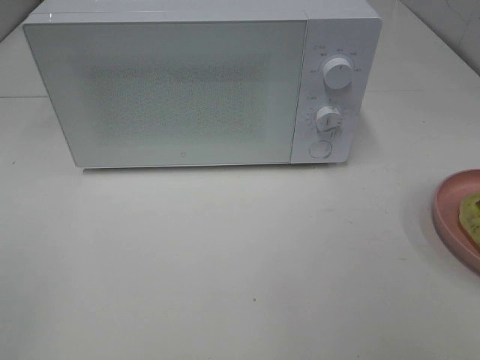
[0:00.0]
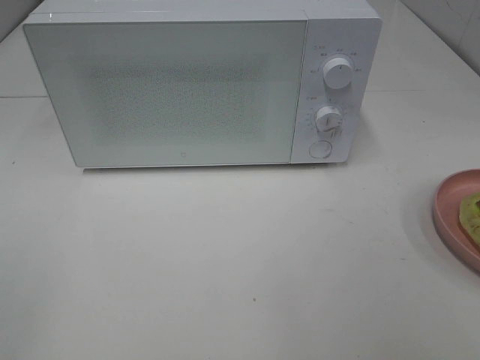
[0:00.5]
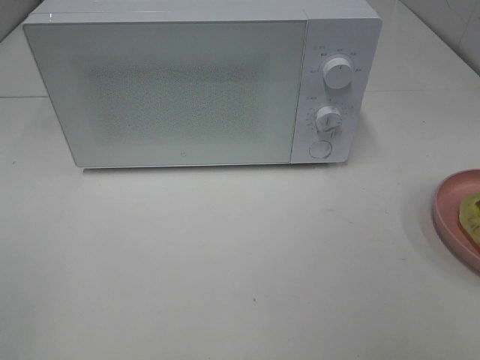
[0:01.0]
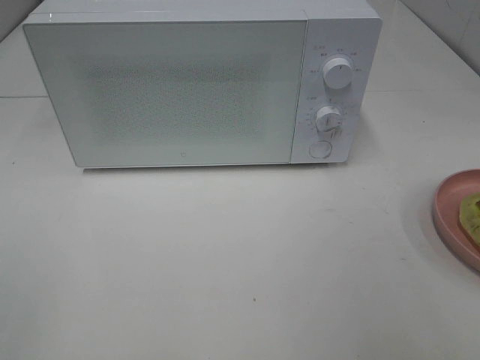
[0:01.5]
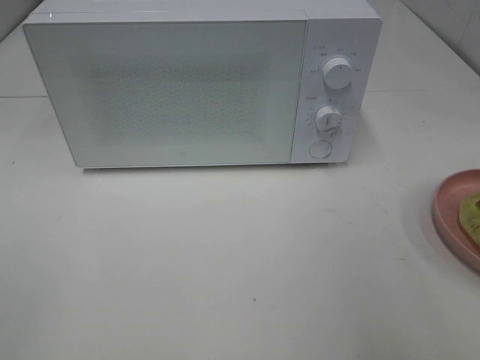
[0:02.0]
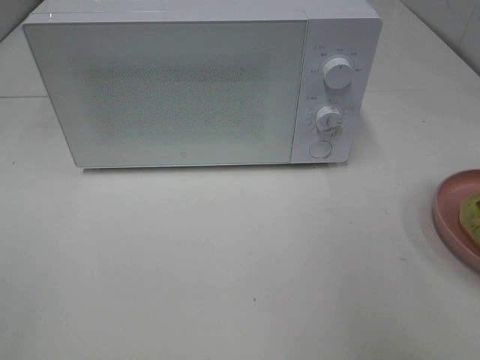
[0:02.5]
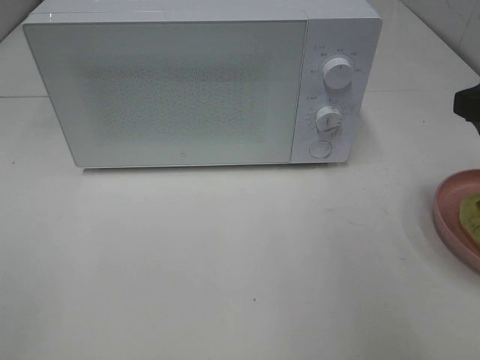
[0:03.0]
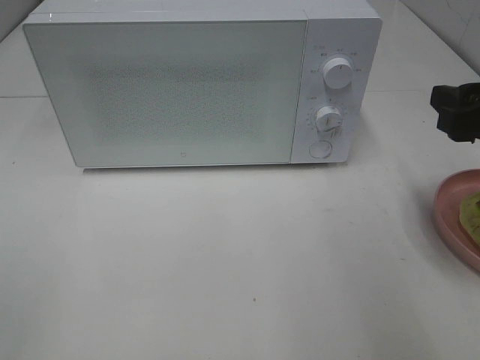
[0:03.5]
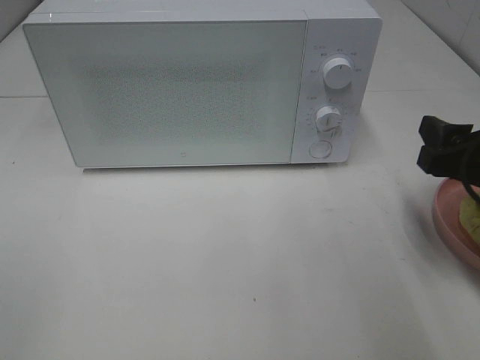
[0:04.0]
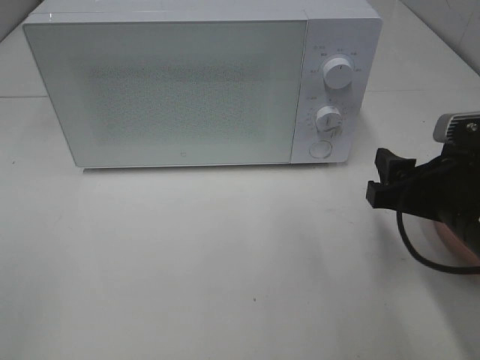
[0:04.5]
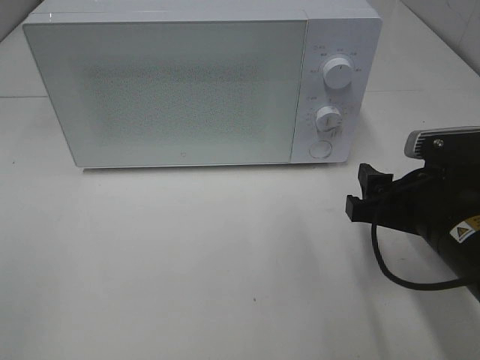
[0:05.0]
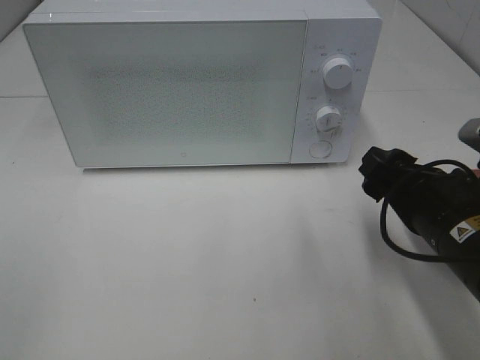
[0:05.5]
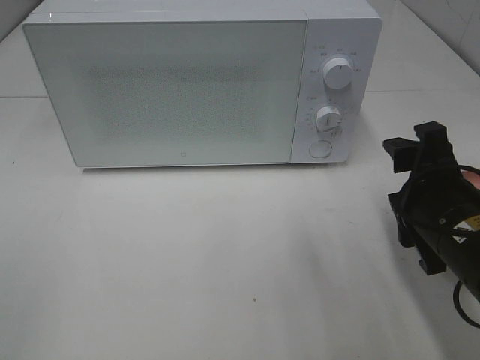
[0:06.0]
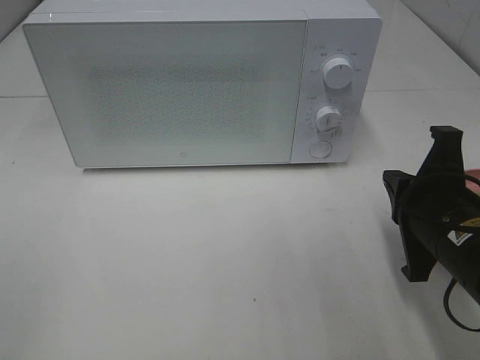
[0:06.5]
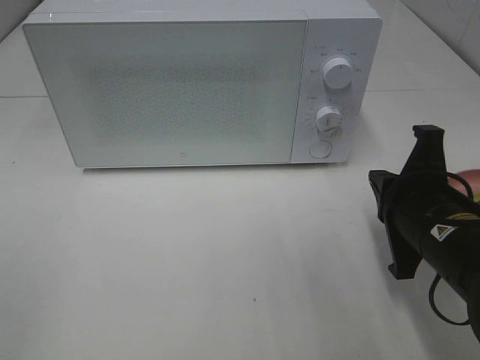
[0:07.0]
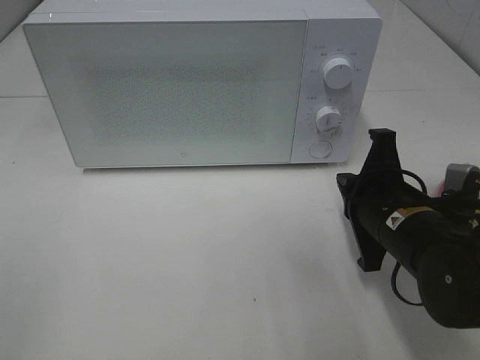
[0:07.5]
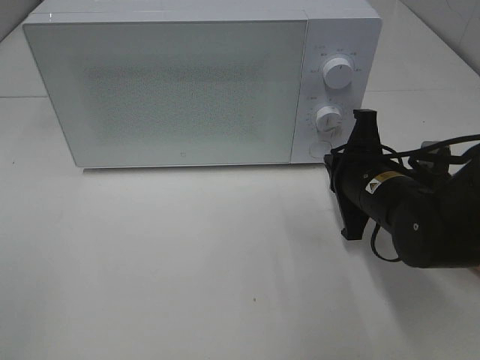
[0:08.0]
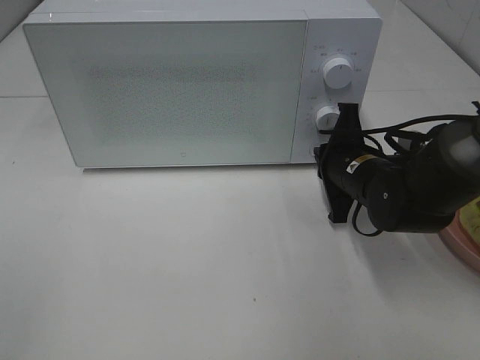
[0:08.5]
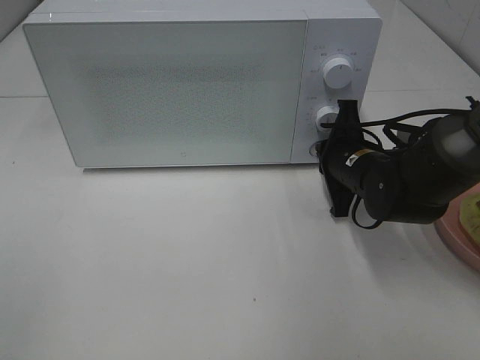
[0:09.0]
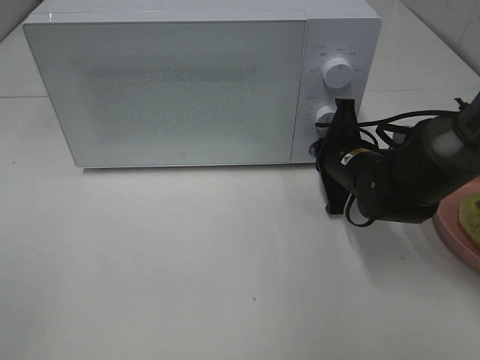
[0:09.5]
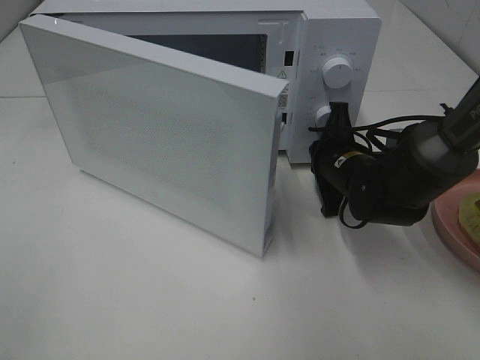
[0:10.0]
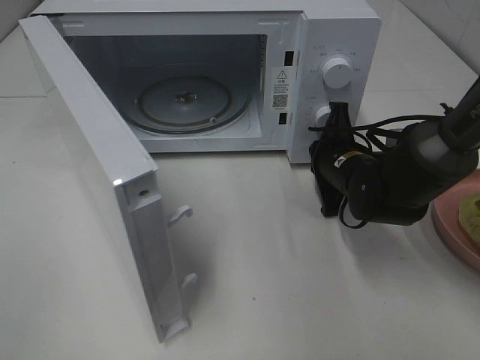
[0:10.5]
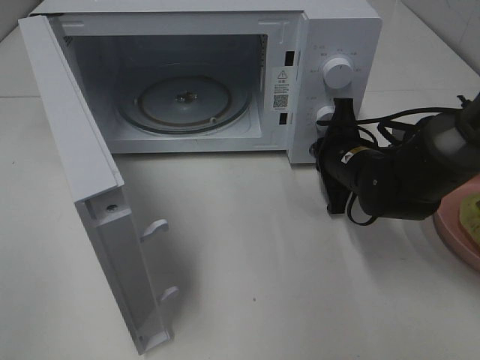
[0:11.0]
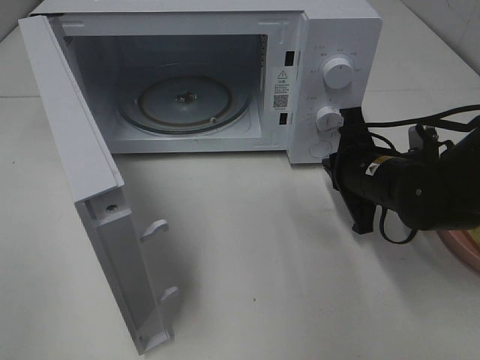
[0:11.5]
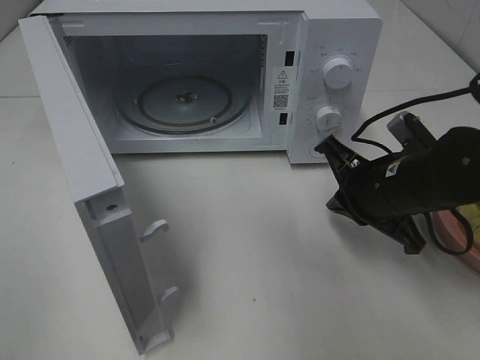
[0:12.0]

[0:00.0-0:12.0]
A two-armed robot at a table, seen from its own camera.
Task of the whole recording: Heat Sandwich.
Step, 0:00.0 to 0:11.0: Right hand: press the switch.
0:02.0 to 0:04.0: The right gripper shifts roughly 15 cm downward and forward.
0:04.0 to 0:06.0: The right gripper goes roughly 5 cm to the left.
0:06.0 to 0:08.0: The right gripper heads forward, covering some 10 cm, and closes up.
0:08.0 to 0:10.0: The right gripper travels forward by some 5 cm.
0:10.0 to 0:12.0: The right gripper goes about 10 cm backward and upward.

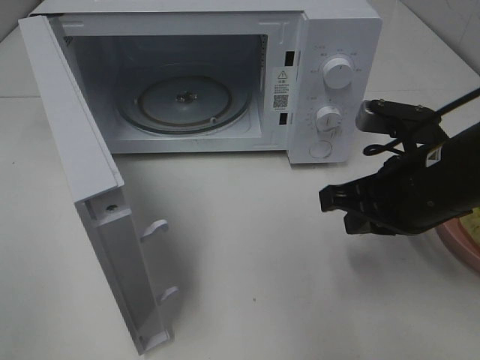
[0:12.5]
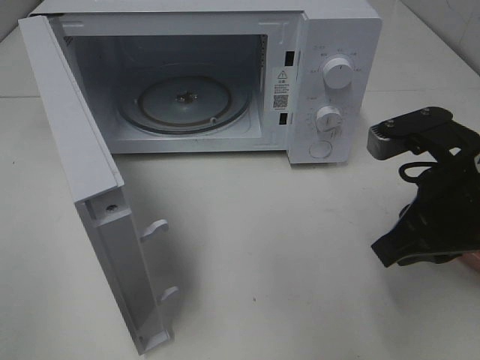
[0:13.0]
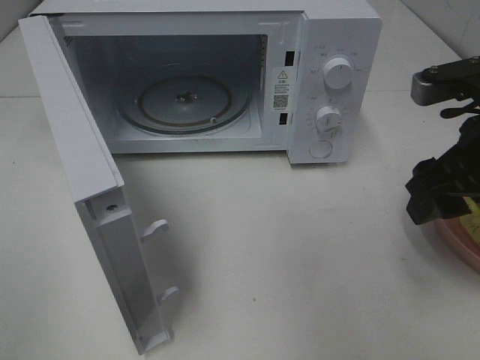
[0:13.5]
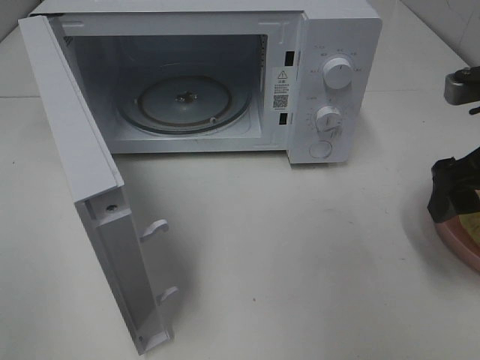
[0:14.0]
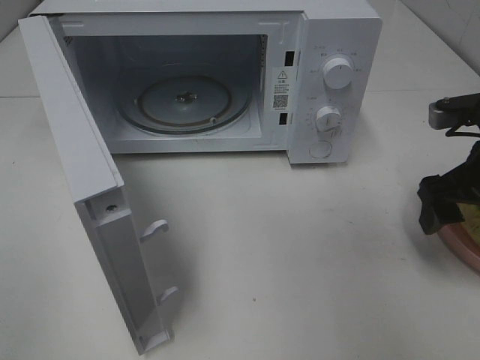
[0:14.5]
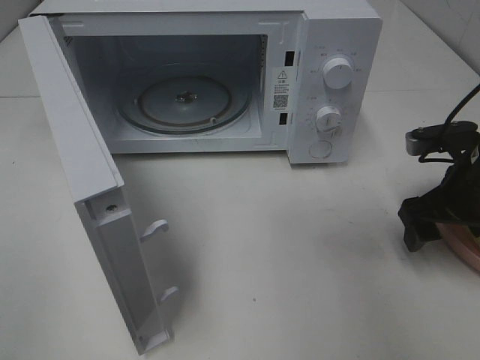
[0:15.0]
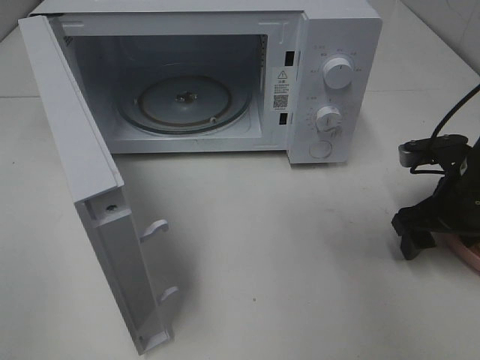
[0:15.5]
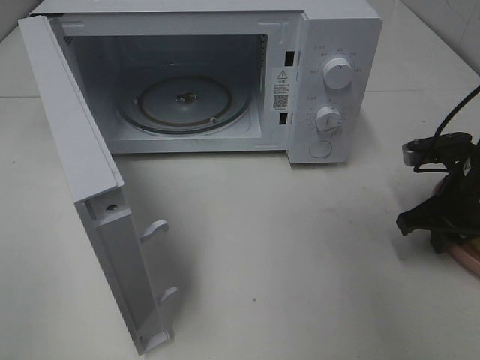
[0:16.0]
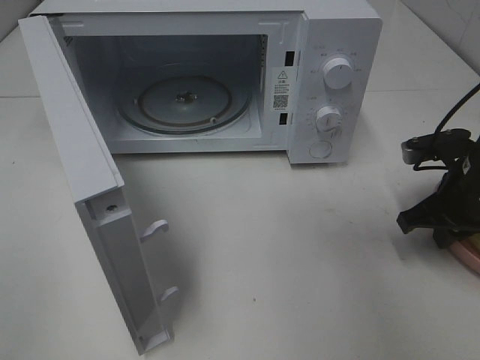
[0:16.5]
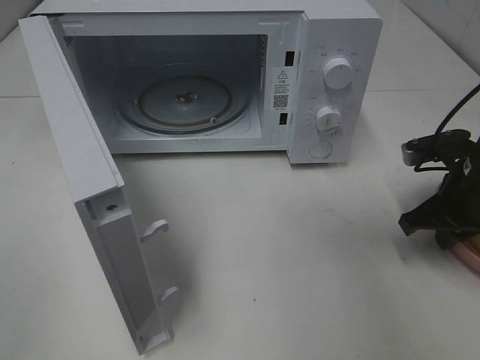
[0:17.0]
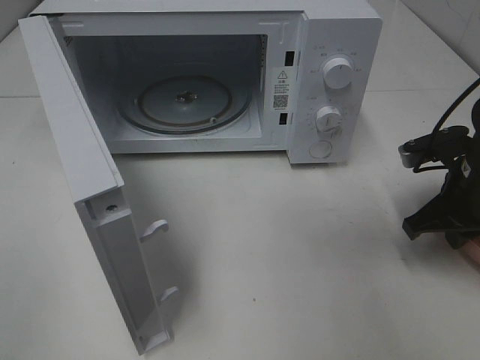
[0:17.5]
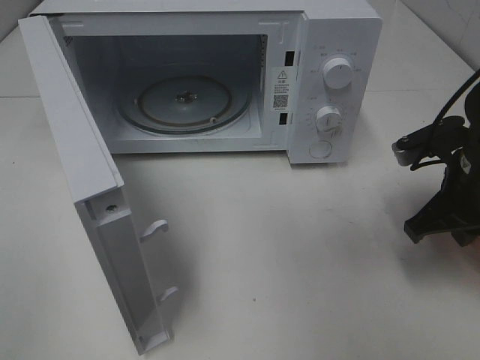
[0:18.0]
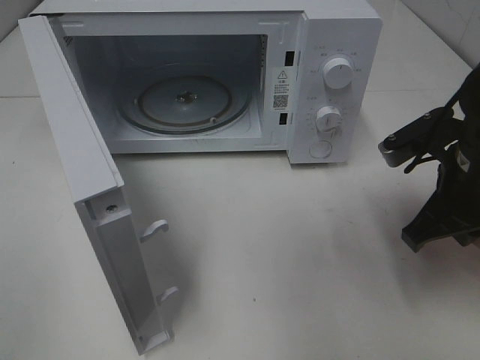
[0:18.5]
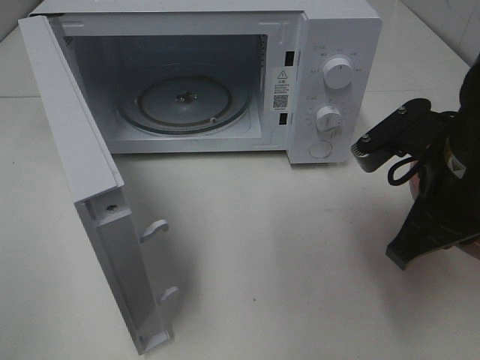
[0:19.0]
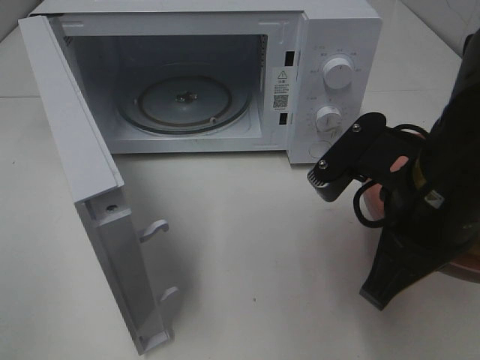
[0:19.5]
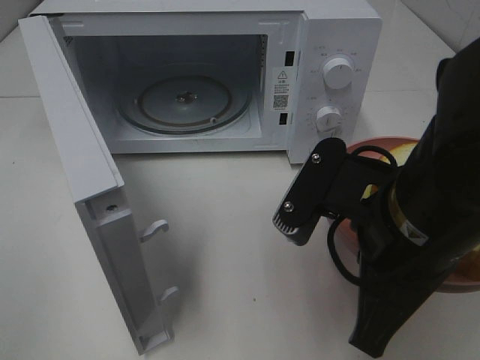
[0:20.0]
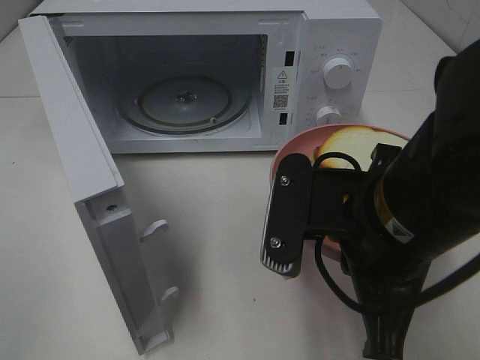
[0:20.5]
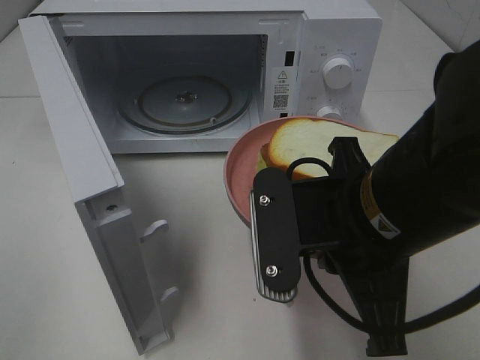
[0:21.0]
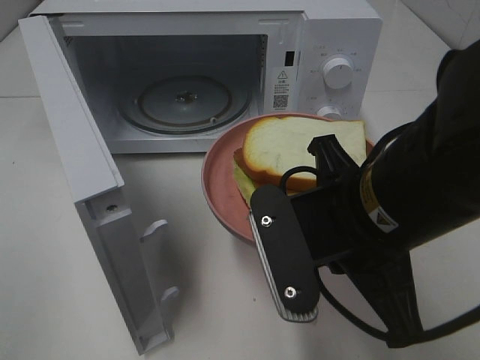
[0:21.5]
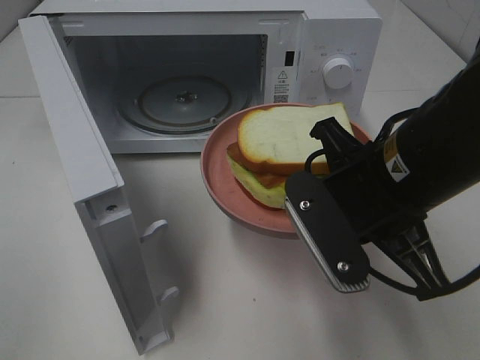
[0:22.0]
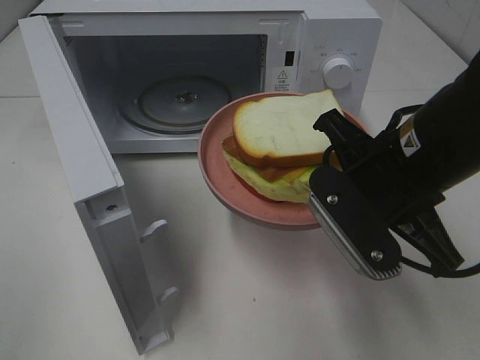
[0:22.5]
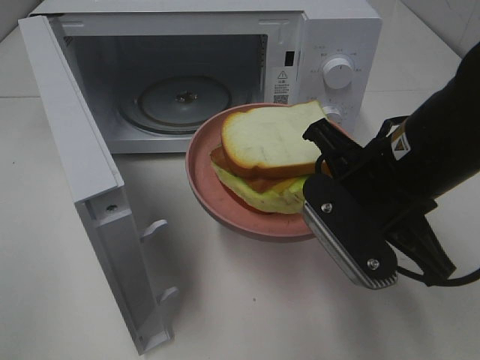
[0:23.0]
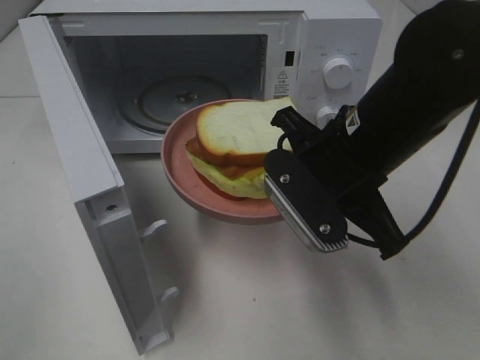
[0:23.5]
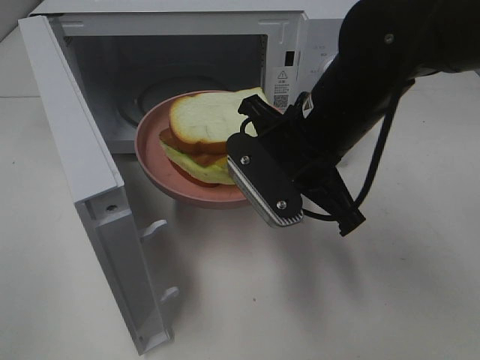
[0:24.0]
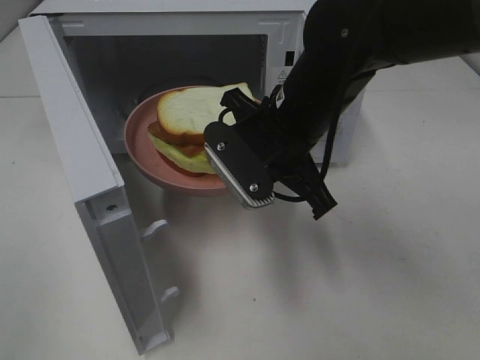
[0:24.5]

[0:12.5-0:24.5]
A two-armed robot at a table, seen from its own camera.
Task of the whole recording: Heat Sandwich.
Step, 0:12.5 to 0:17.0: Right hand: grab the plate with the sandwich.
0:12.5 to 0:14.5: The right gripper is displaced to the right by about 10 cm, and opens its fingers.
0:14.5 to 0:16.5: The right gripper heads downward, covering roughly 5 cm, and closes up.
0:16.5 to 0:18.5: The right gripper moves upward and to the left, approximately 10 cm.
0:18.5 to 0:20.5: The right gripper heads to the left and backward, covering roughly 15 cm.
0:20.5 to 0:22.5: The right gripper goes about 5 cm forward.
0:22.5 to 0:24.5: The right gripper goes about 10 cm to the left and forward.

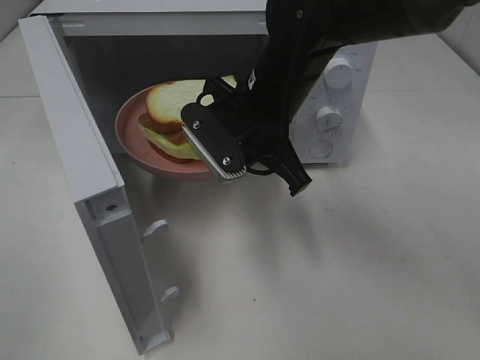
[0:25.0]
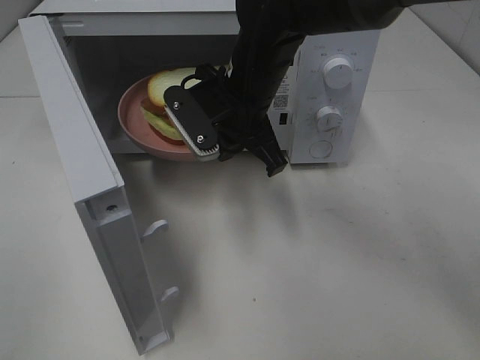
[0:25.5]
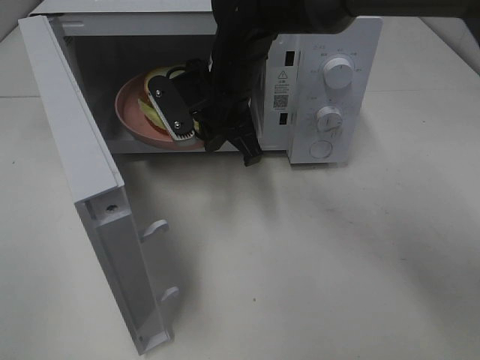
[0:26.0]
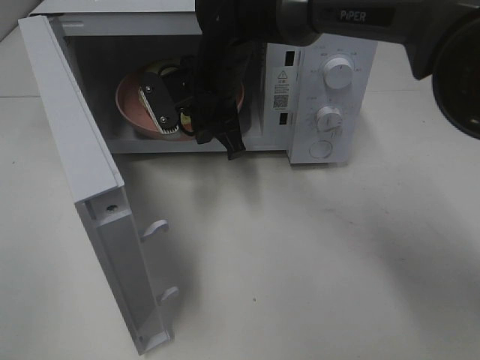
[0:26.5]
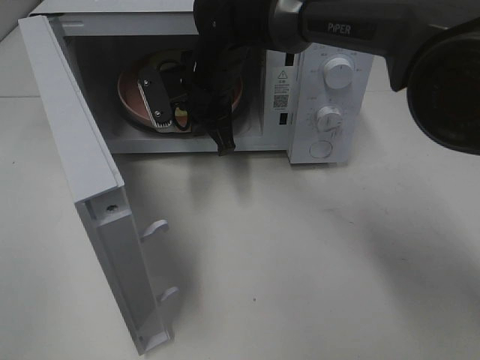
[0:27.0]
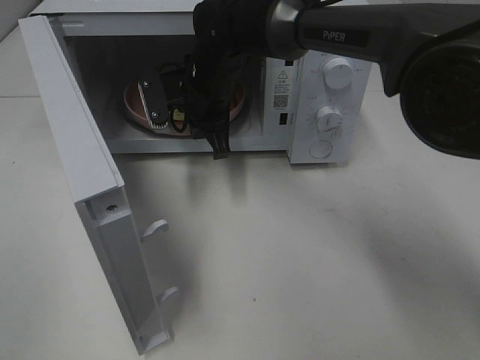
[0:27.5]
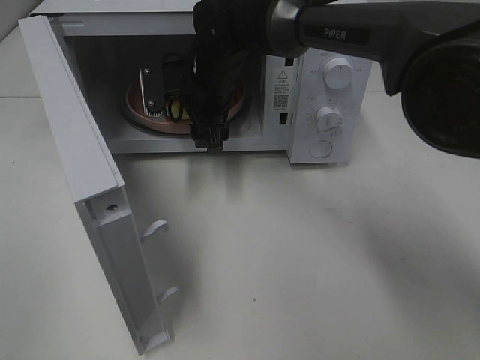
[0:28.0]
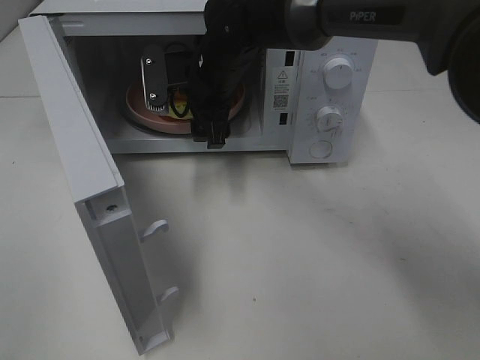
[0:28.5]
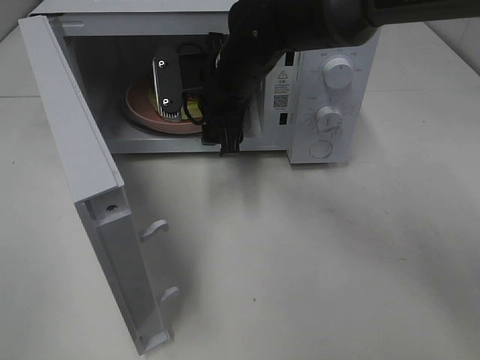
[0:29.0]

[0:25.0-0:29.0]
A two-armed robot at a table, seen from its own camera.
Task of the whole recording: Heat Sandwich.
0:25.0 to 0:27.0: The right gripper goes some 10 cm forward and to the left.
0:27.0 to 0:29.0: The right gripper opens.
